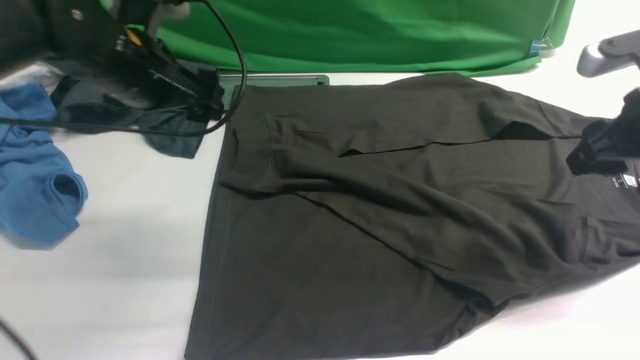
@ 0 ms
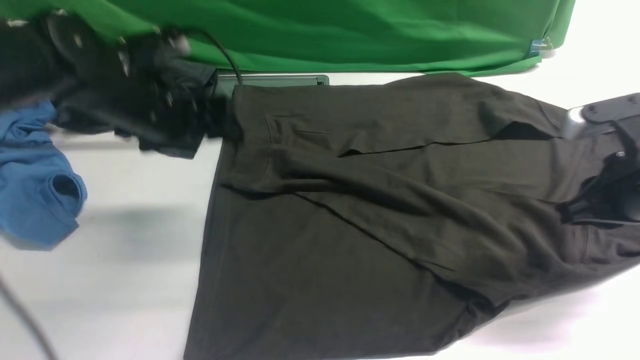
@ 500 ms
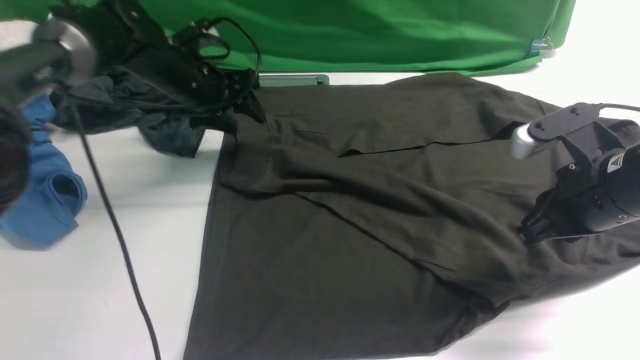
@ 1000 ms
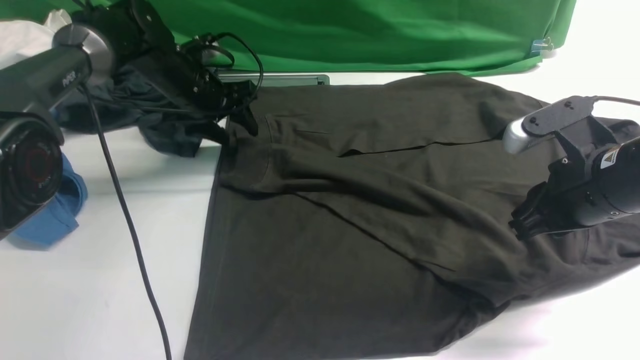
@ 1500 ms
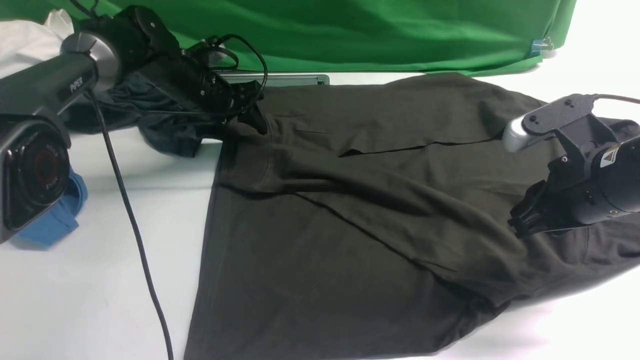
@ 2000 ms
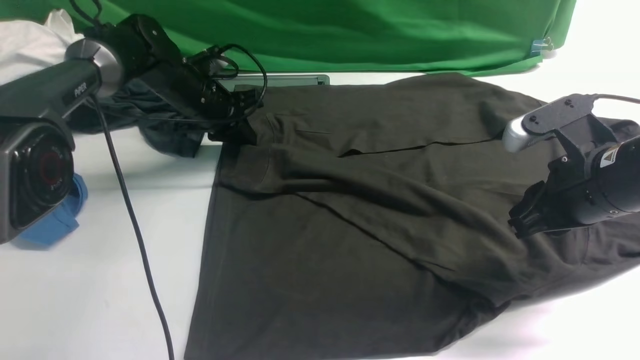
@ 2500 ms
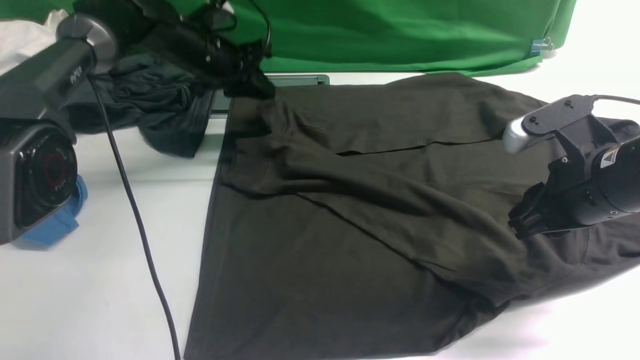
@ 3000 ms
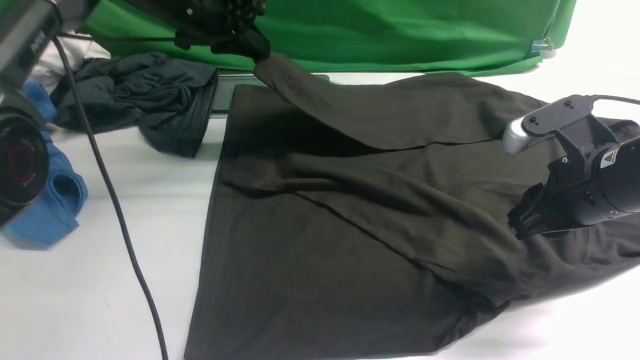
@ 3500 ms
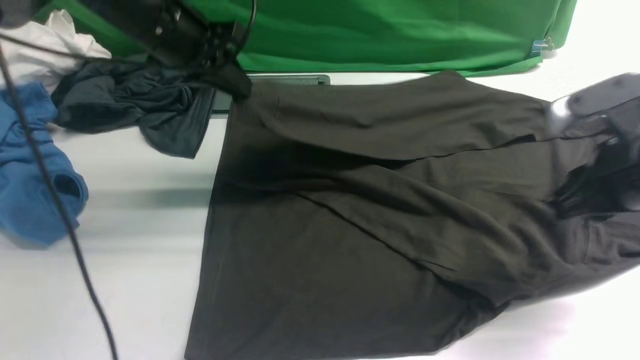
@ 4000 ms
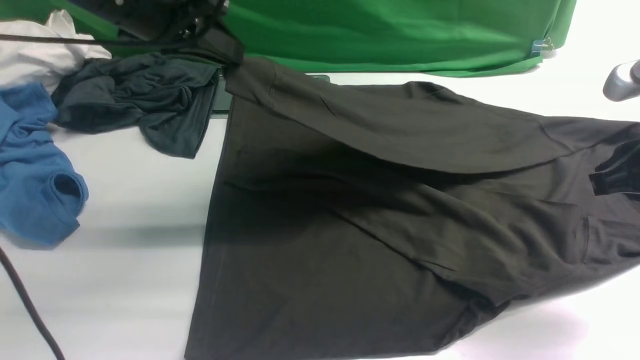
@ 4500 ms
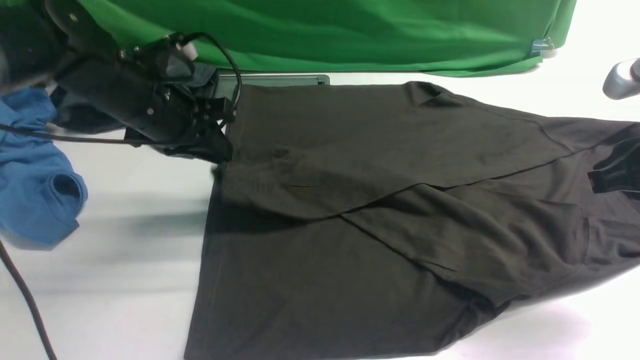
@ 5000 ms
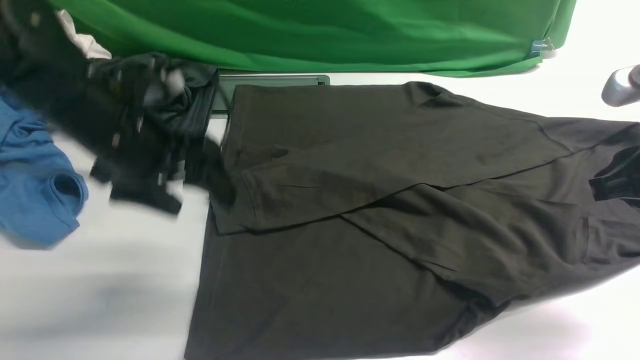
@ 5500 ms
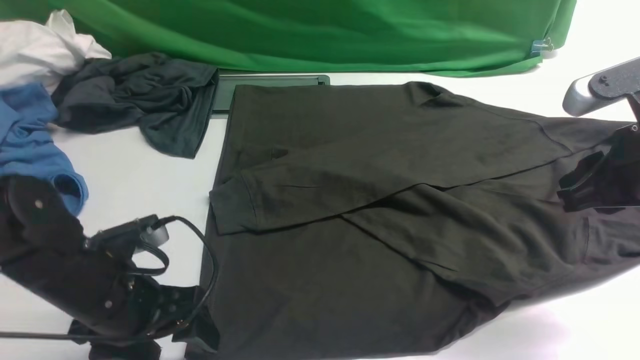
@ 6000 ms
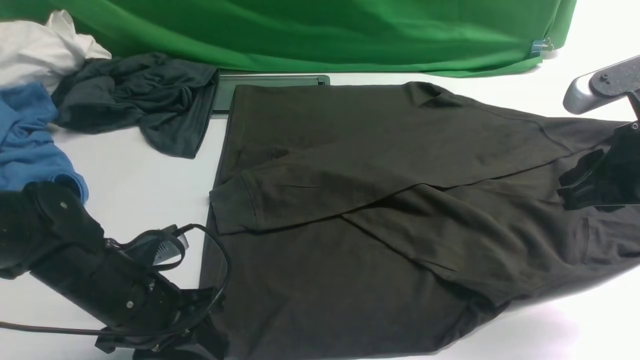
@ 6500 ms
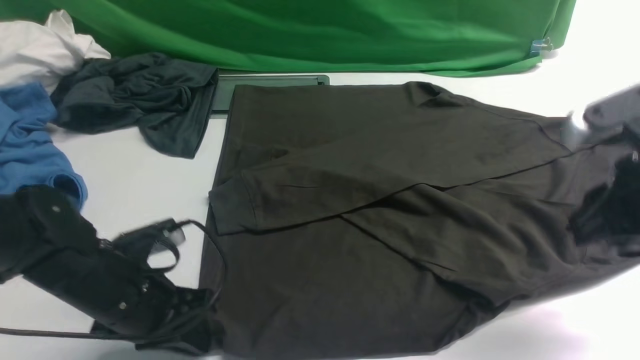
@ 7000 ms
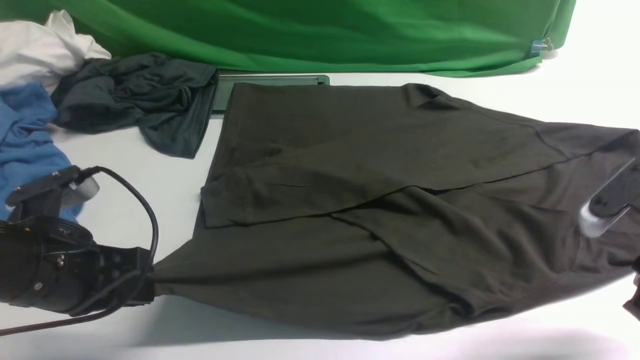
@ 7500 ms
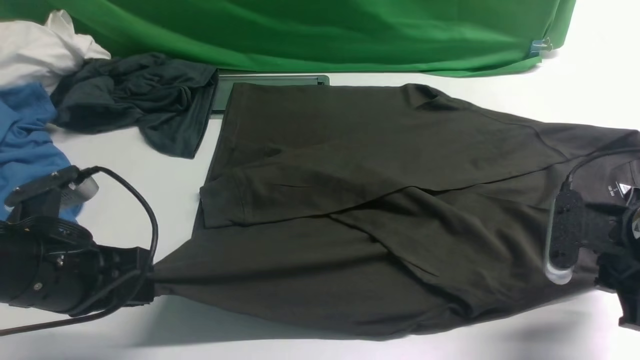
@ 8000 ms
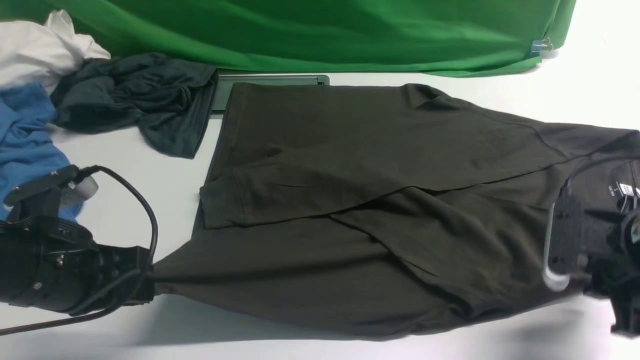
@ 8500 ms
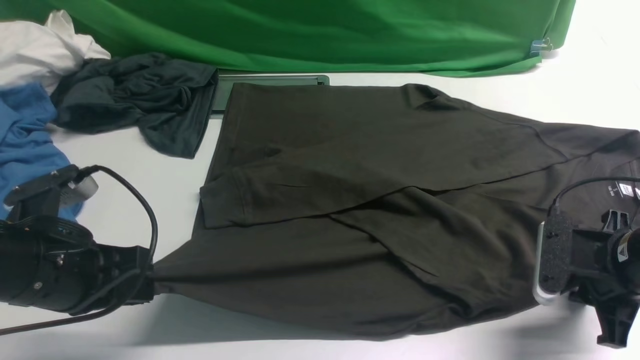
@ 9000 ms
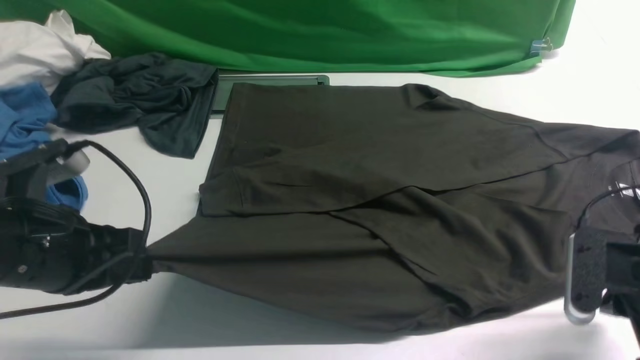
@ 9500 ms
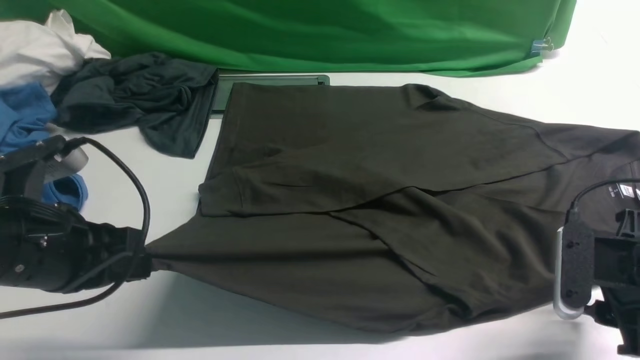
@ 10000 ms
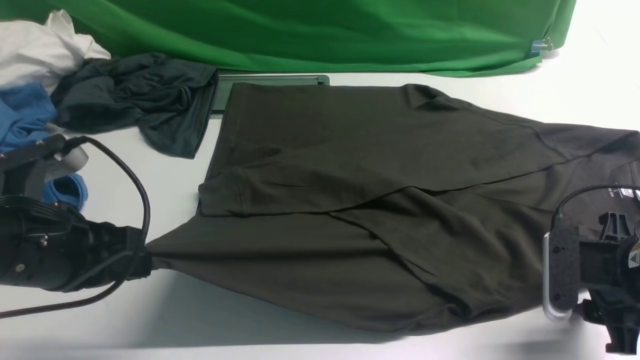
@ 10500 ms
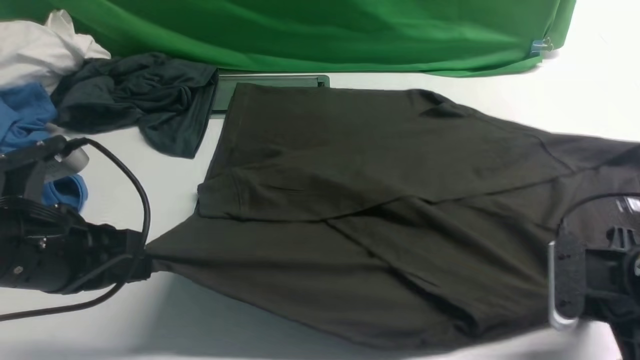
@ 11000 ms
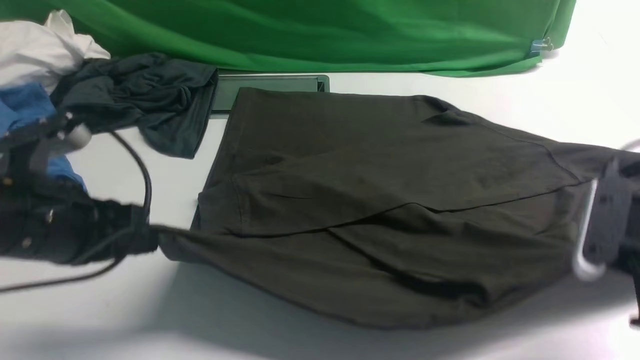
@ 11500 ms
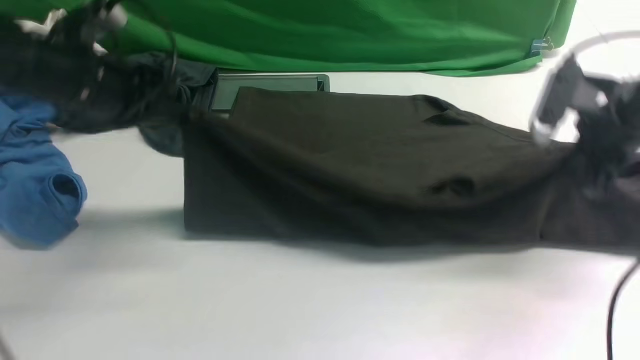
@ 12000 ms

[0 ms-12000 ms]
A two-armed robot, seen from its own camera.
Step, 0 ms to 3000 ms: use the left arm to clamp the cuff farthest from it.
Step, 3500 ms to 5000 ms: use the left arm to drag and drop the cuff onto the cuff closest to the left arm.
Step, 5500 ms to 11000 ms: use both arms simultaneously to clamp the lower edge of the clothing fabric.
0 ms to 2000 ms: The right gripper travels to the left by about 5 cm, and closes up. Meanwhile the left gripper shifts some 20 cm forward and downward, and closes its fingers.
2000 ms to 4000 ms: The left gripper goes some 15 cm upward and backward, and closes.
4000 ms to 6000 ms: The left gripper is displaced backward and downward by roughly 25 cm, and opens its fingers.
6000 ms to 8000 ms: The left gripper heads upward, covering some 5 cm, and closes. The right gripper shifts about 10 cm downward.
8000 ms to 10000 ms: The right gripper closes, then opens again.
10000 ms to 12000 ms: The left gripper is displaced forward by about 20 cm. The right gripper moves forward and upward, some 15 cm, and closes its fingers.

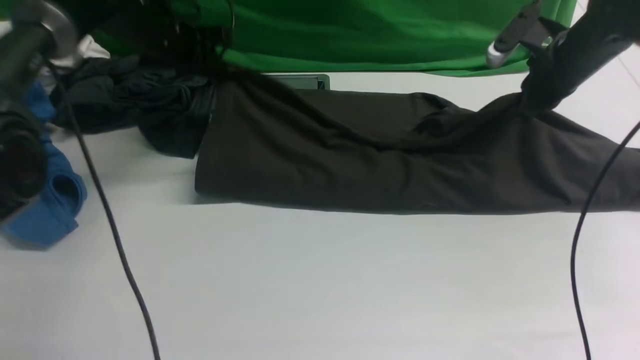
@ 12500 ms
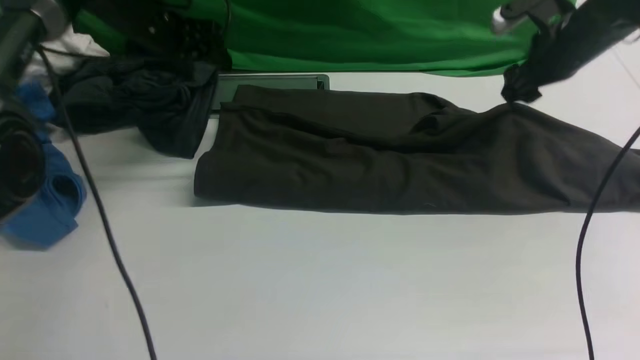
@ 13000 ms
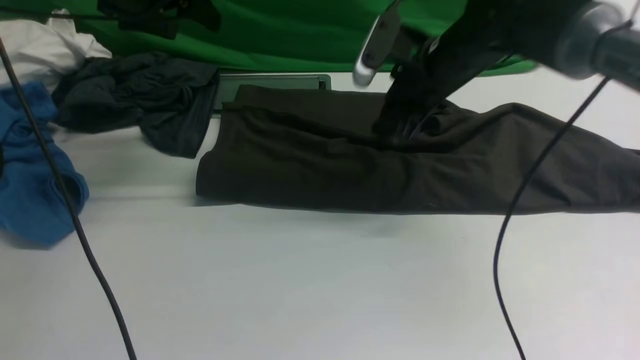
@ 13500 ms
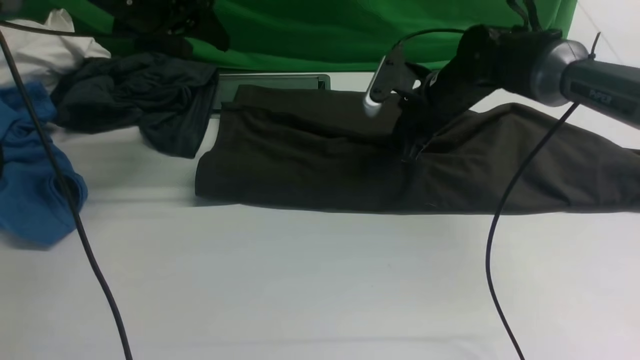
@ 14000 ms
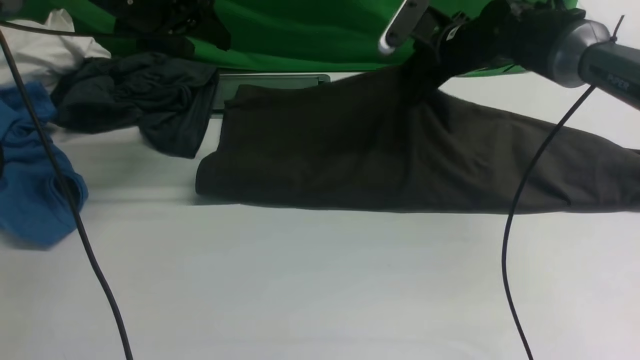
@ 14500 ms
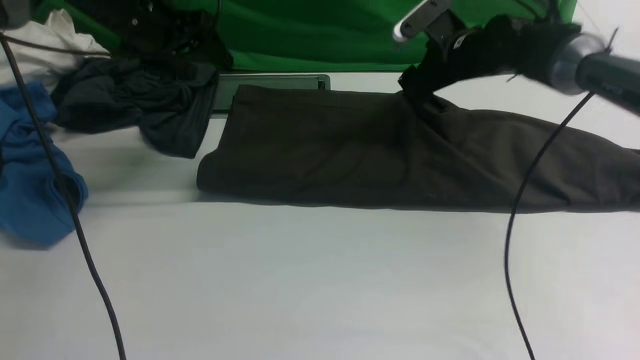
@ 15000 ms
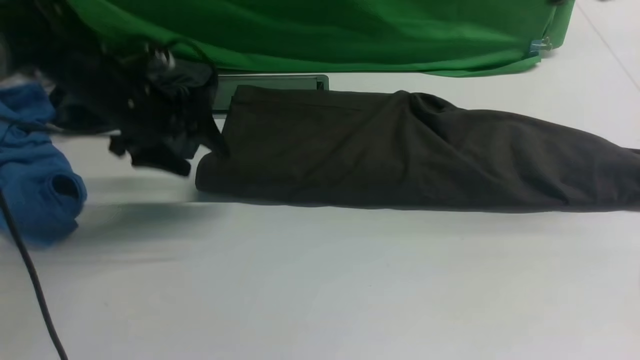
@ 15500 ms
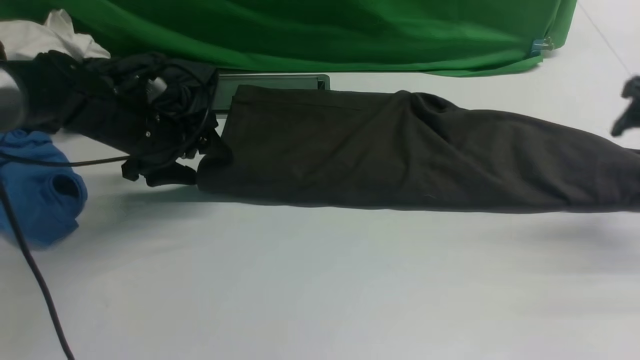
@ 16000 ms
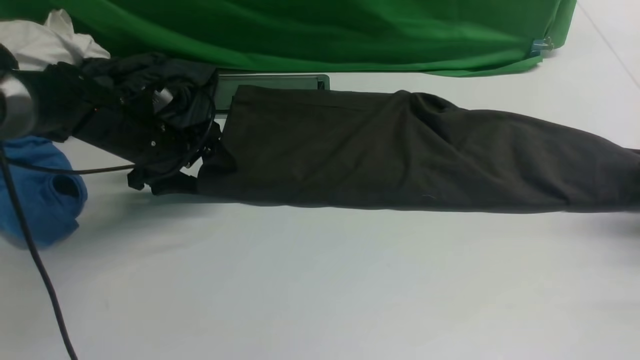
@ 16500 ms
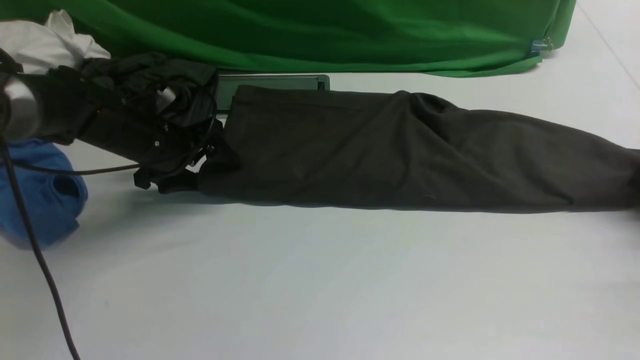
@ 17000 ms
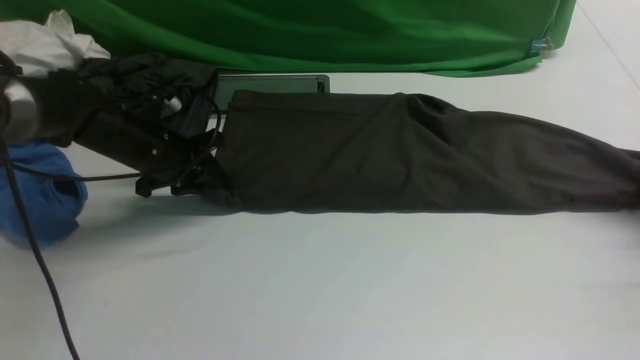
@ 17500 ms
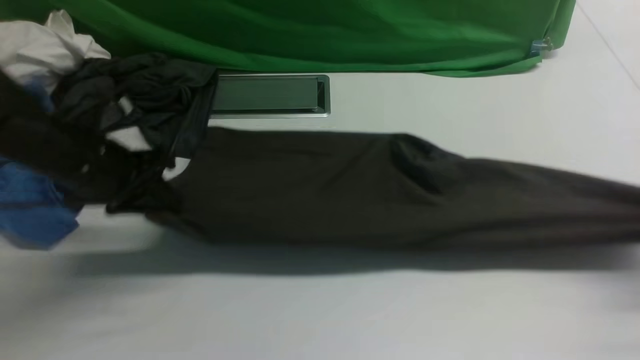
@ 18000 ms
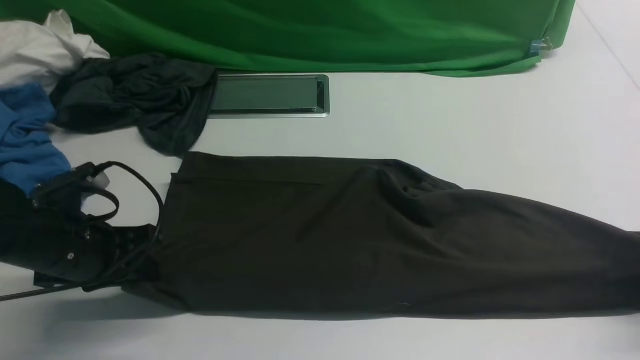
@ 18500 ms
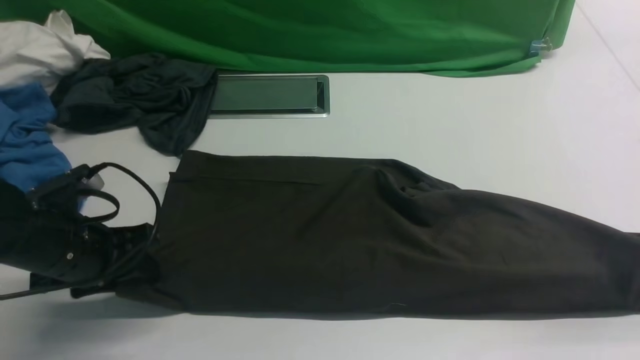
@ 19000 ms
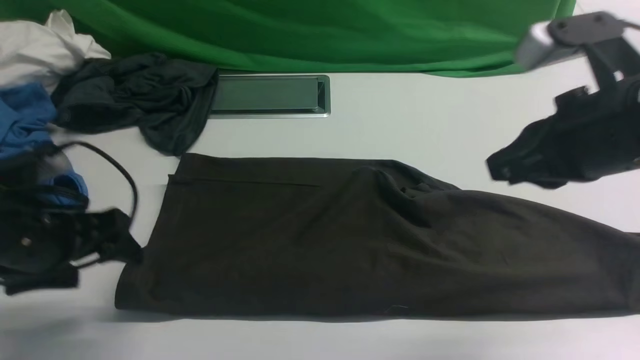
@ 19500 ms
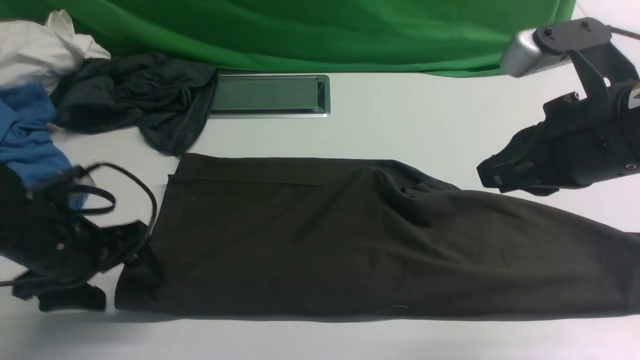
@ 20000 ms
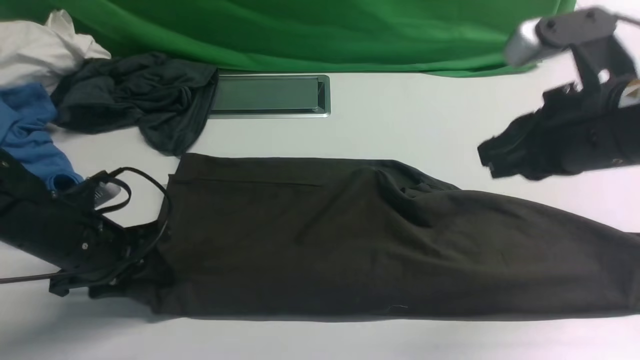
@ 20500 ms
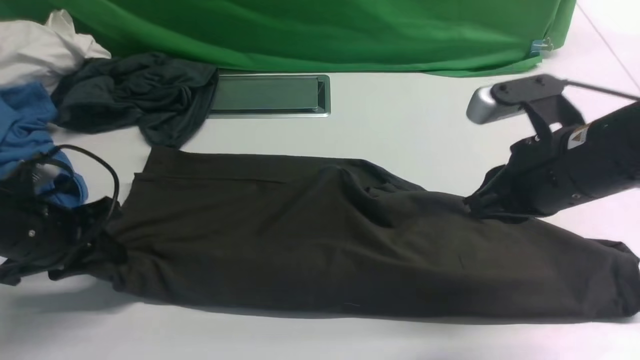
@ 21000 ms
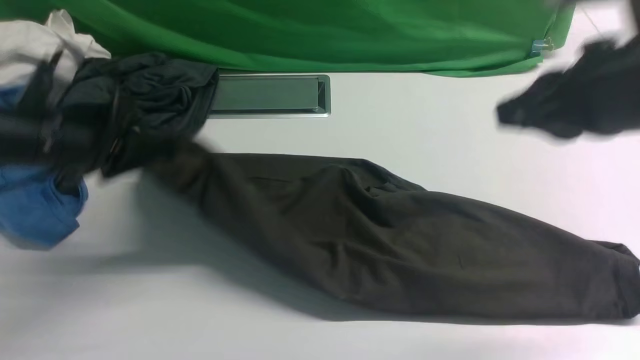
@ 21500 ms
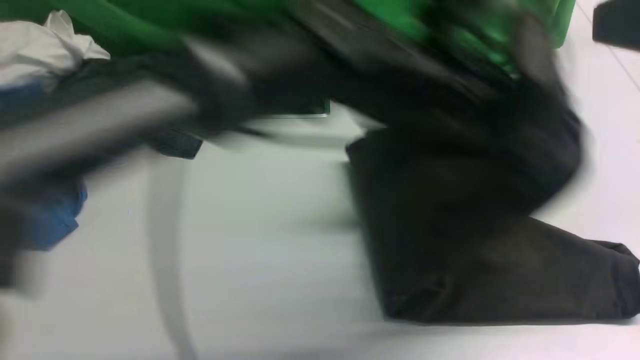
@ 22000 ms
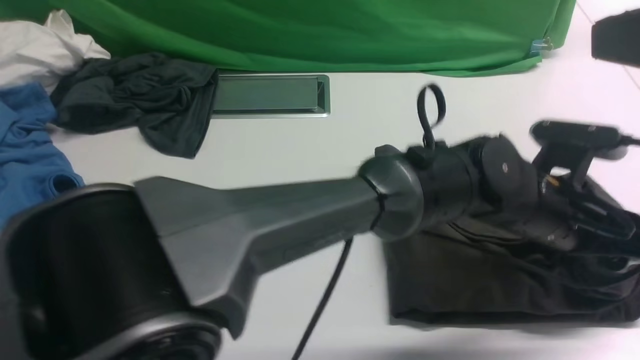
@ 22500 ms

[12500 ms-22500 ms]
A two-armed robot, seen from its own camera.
Step, 12500 ms to 15000 ms: use both arms to drag the lower edge of the fabric forward and fold it over the upper edge.
Step, 15500 ms to 21000 ms: Hold the left edge of the fabric with your left arm.
12500 ms to 14500 ms: The right gripper moves to the left, approximately 15 cm, and opens, then closes once more, while the left gripper is displaced upward by approximately 5 cm, and opens.
14500 ms to 16500 ms: The right gripper travels to the right and backward by about 35 cm, and opens its fingers. The left gripper shifts some 15 cm downward and backward.
16500 ms to 18500 ms: The right gripper shifts some 10 cm backward, and closes, then opens again; the left gripper travels backward by approximately 15 cm, and closes its fingers.
18500 ms to 20500 ms: The right gripper moves to the left and upward, about 25 cm, and closes up. Meanwhile the left gripper opens, then closes again.
20500 ms to 22500 ms: The left gripper moves to the right, about 40 cm. Meanwhile the right gripper moves upward and backward, approximately 15 cm.
